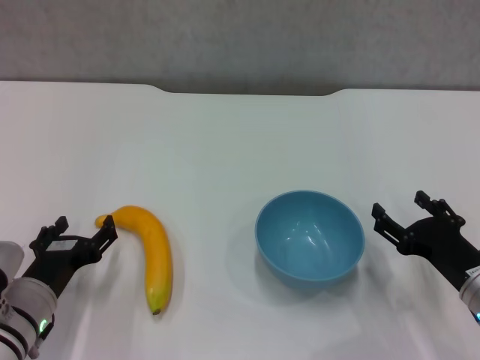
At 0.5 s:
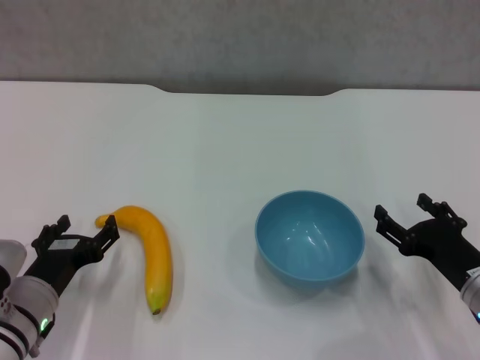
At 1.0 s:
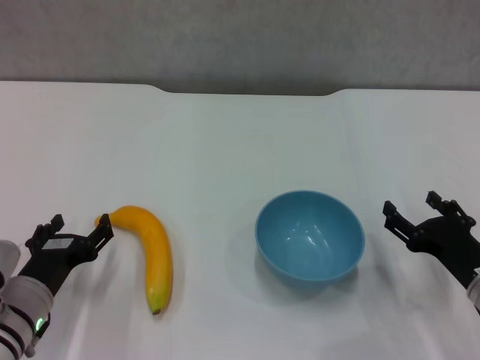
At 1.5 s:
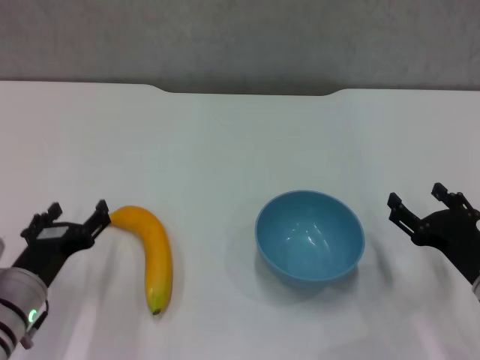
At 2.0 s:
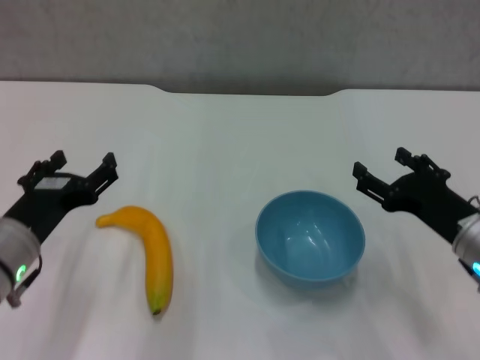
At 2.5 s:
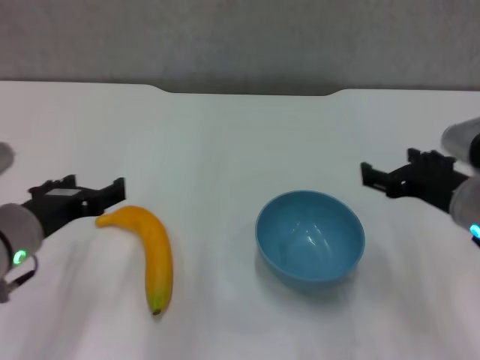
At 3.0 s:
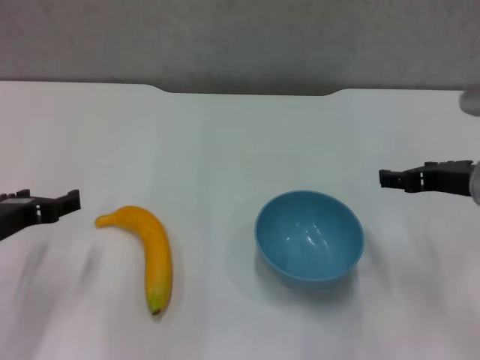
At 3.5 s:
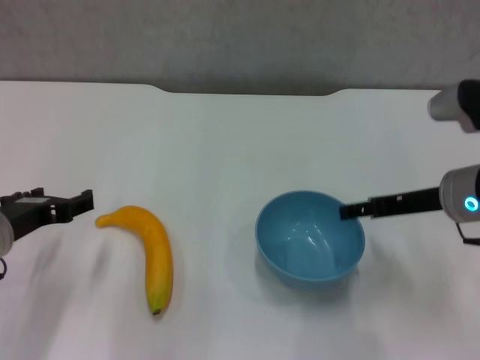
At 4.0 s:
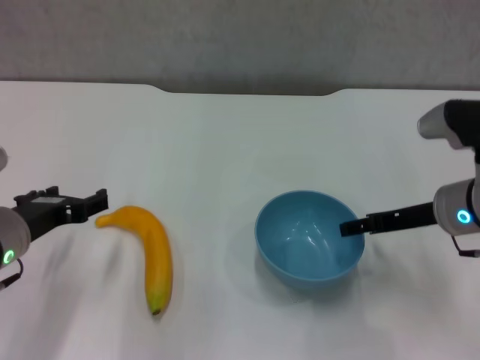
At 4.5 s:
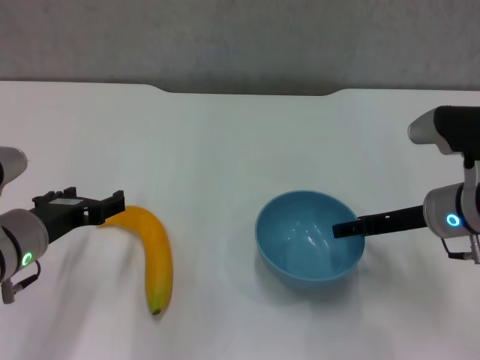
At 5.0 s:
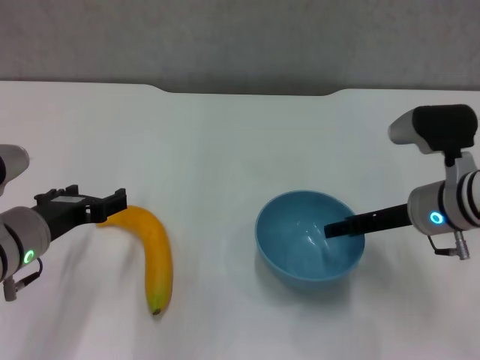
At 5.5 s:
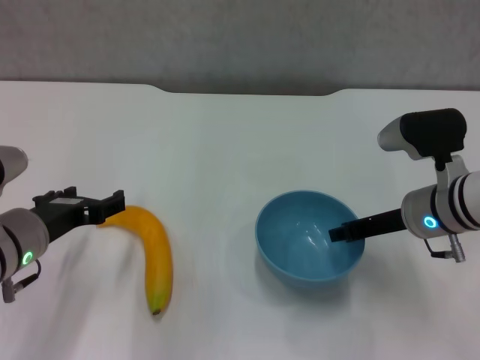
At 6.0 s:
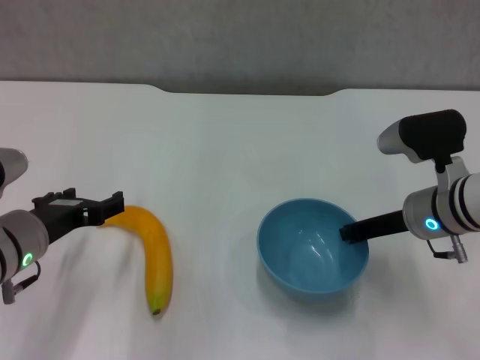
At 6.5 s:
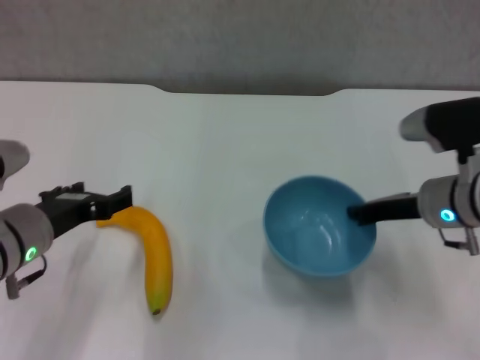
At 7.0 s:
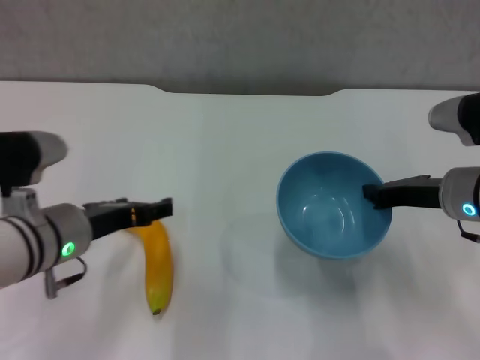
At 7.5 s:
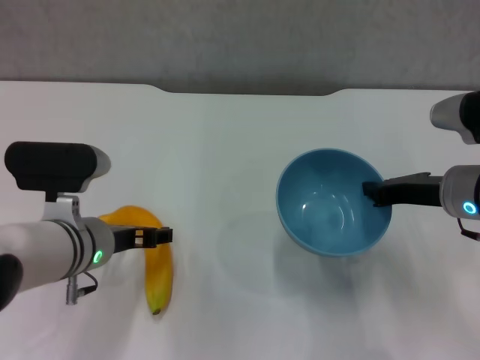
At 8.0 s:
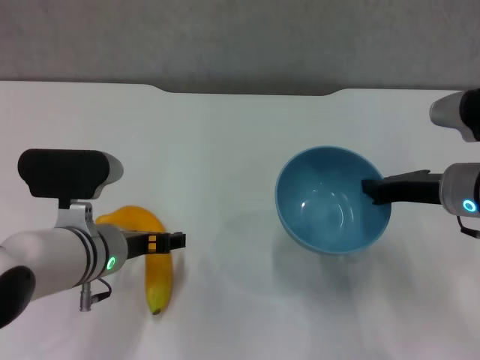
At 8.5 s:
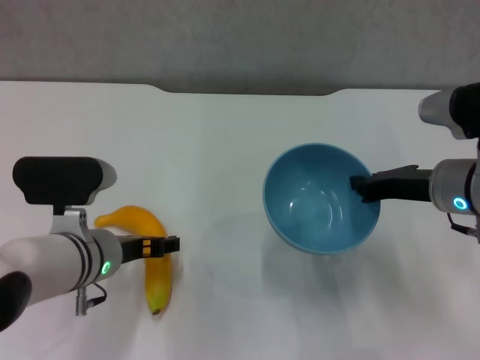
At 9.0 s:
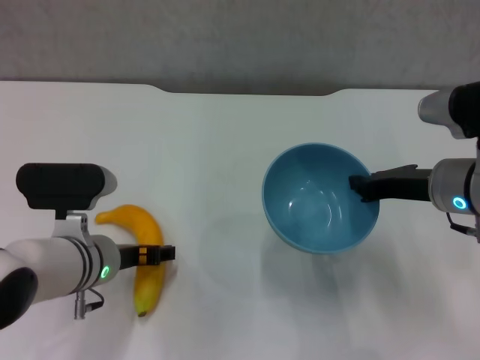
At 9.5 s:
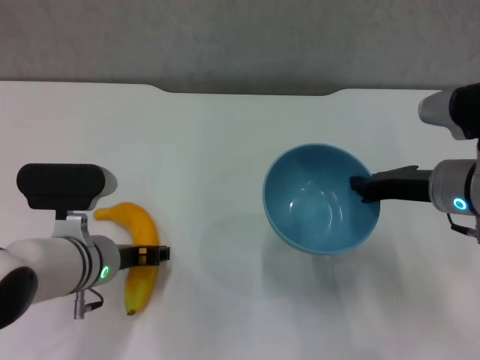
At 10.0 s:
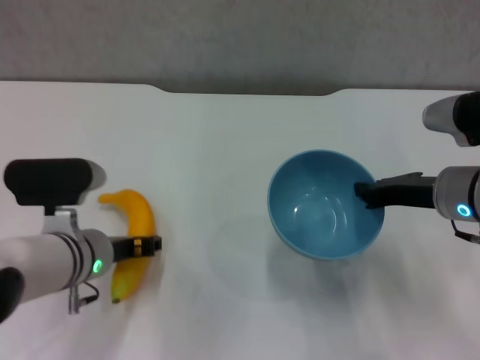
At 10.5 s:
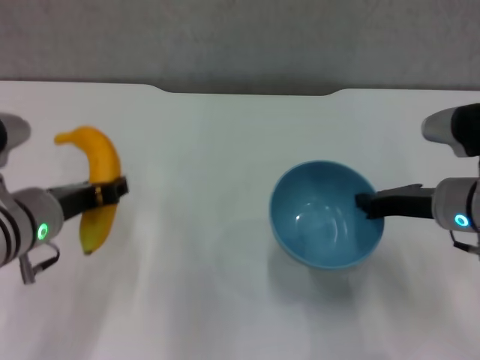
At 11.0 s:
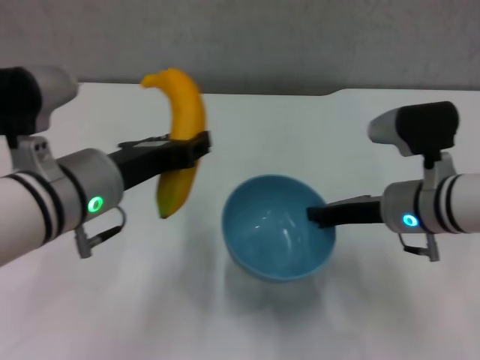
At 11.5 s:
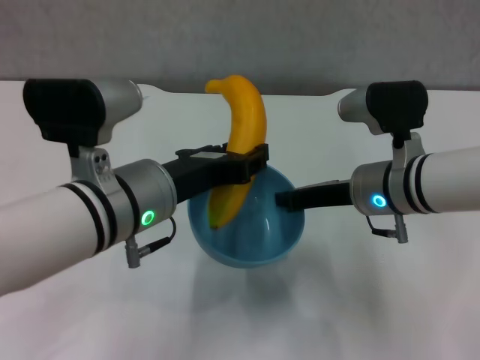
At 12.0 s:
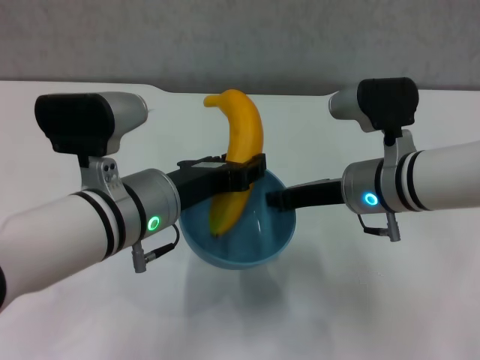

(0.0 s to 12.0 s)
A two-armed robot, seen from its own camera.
Step, 0.0 s - 5.5 s: Grasp the blue bowl with right gripper.
Step, 6.0 s - 6.5 s: Lift the blue bowl with right gripper.
Step, 7.0 s - 9.5 s: Grasp the banana with left gripper.
0.0 s - 2.0 s: The left gripper heads upward, covering roughly 10 cm; the right gripper is displaced upward by approximately 5 cm.
2.0 s - 4.0 s: The right gripper shifts about 5 cm forward.
4.0 s - 6.0 s: The right gripper closes.
6.0 s - 8.0 s: The left gripper moves to the right, roughly 5 cm.
8.0 s - 10.0 s: The left gripper closes its fingers.
10.0 s - 12.0 s: The left gripper heads upward and to the right, covering some 10 cm. Meanwhile the right gripper travels to the left by about 10 cm.

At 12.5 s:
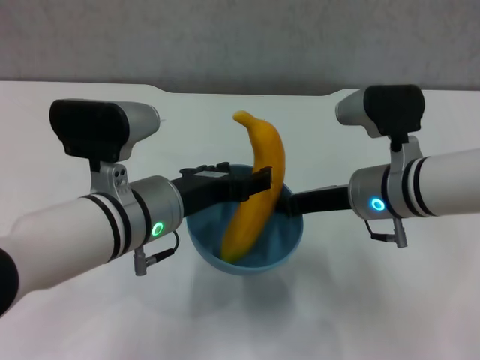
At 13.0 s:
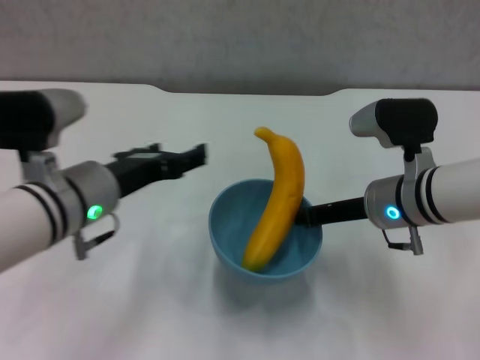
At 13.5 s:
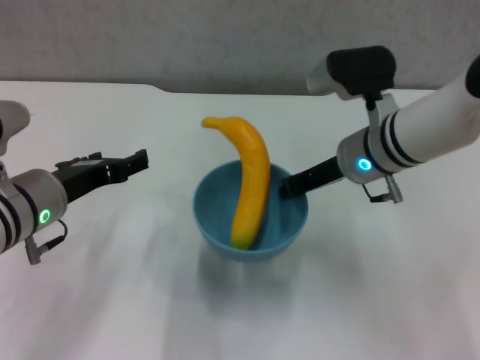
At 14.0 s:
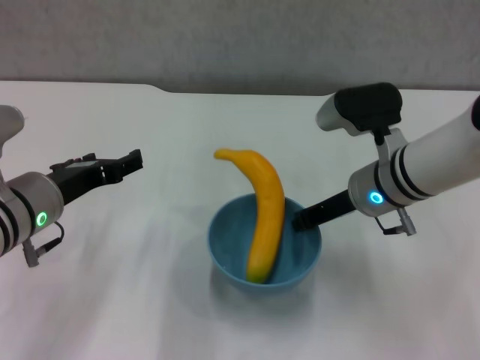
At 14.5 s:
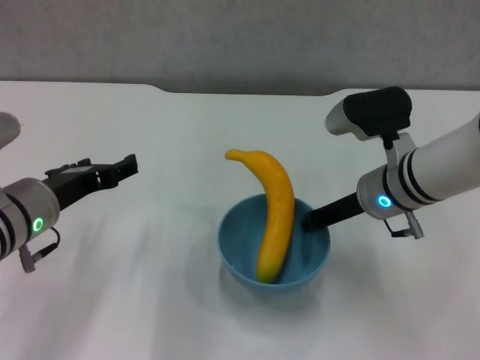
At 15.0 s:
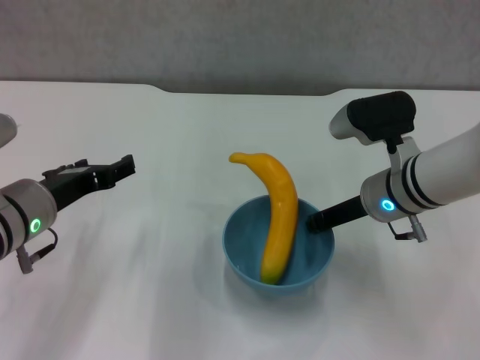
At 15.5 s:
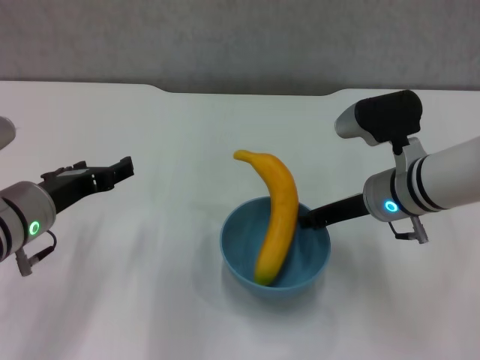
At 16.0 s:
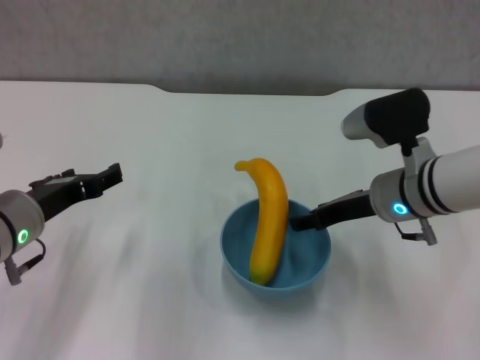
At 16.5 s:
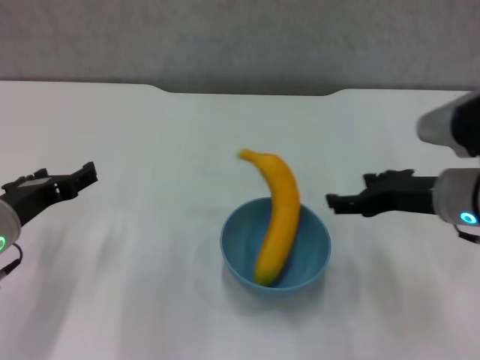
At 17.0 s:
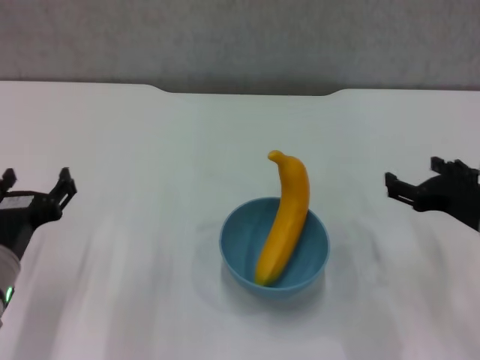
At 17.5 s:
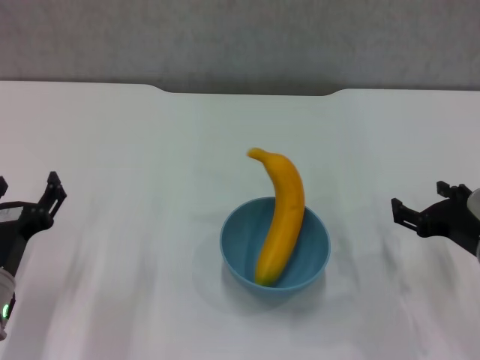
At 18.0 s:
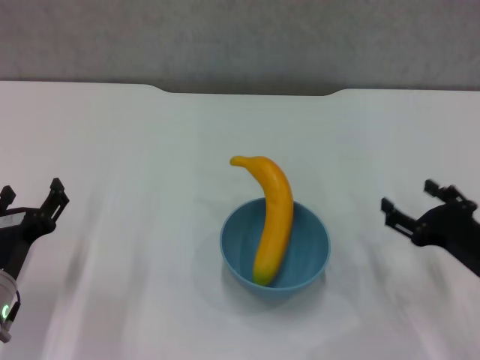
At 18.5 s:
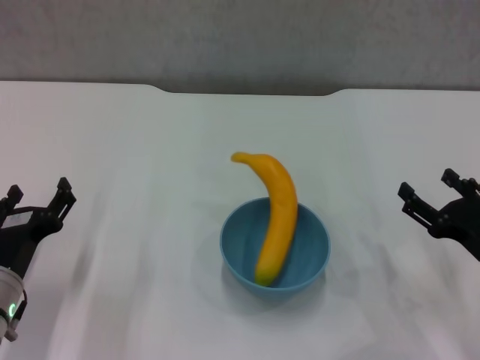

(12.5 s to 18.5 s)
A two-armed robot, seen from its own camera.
Step, 13.0 s - 16.0 s: Place the bowl on the table with right gripper.
12.5 s - 14.5 s: The left gripper travels to the left by approximately 10 cm, and opens up.
14.5 s - 16.5 s: The right gripper moves to the right and backward, some 10 cm, and opens.
16.5 s - 18.5 s: The right gripper shifts about 15 cm downward, to the right and backward. The left gripper shifts roughly 10 cm downward.
